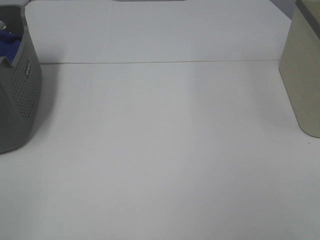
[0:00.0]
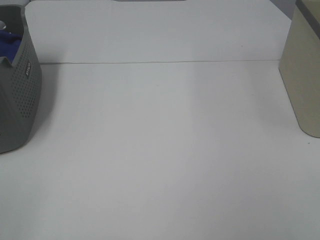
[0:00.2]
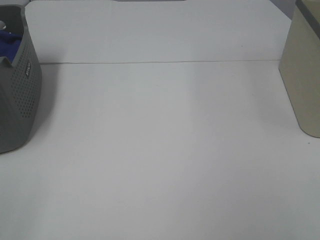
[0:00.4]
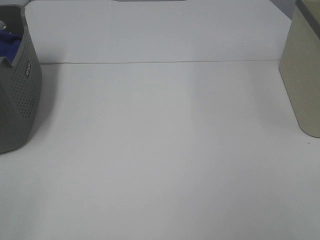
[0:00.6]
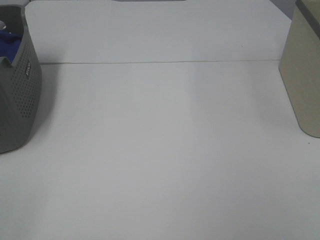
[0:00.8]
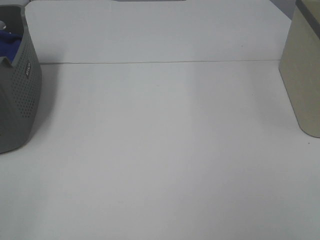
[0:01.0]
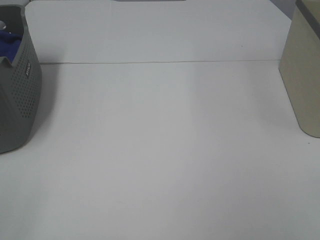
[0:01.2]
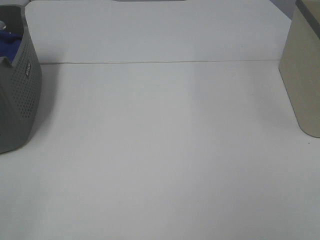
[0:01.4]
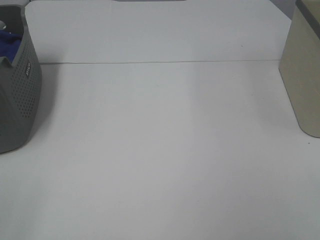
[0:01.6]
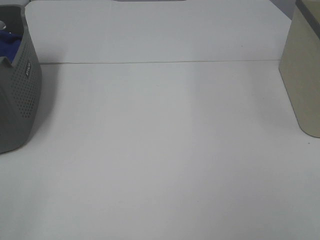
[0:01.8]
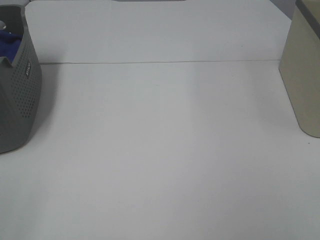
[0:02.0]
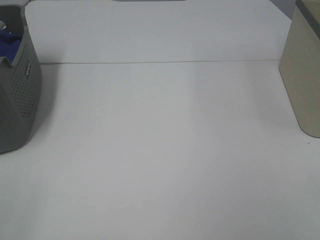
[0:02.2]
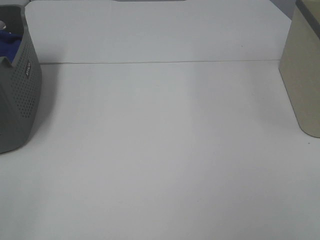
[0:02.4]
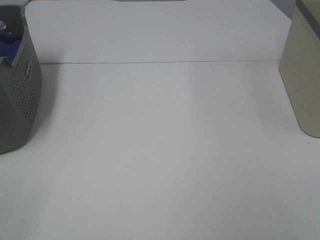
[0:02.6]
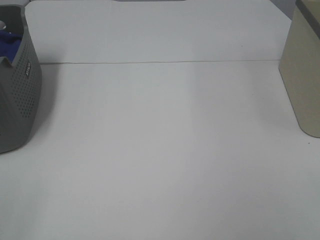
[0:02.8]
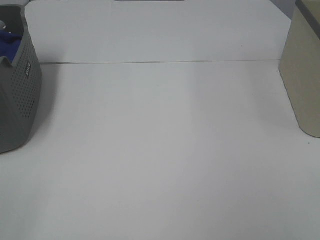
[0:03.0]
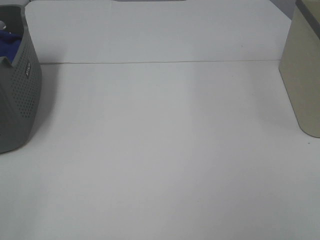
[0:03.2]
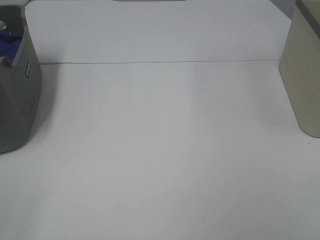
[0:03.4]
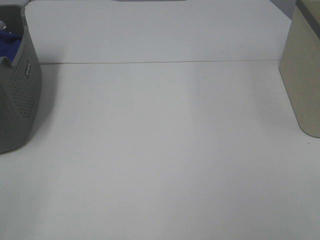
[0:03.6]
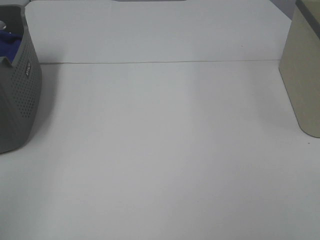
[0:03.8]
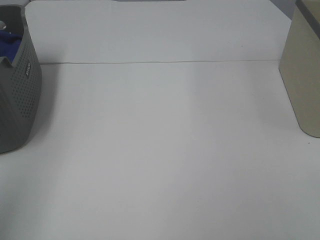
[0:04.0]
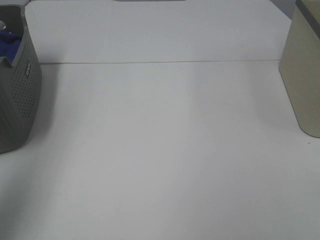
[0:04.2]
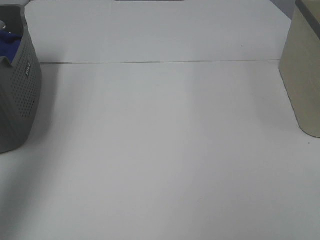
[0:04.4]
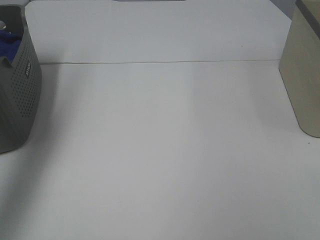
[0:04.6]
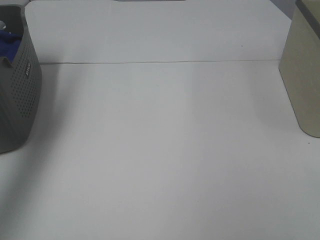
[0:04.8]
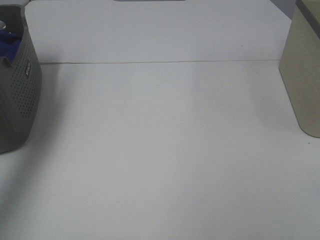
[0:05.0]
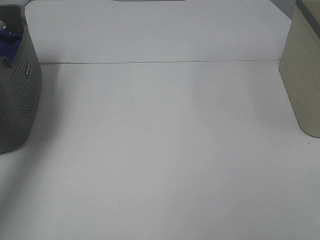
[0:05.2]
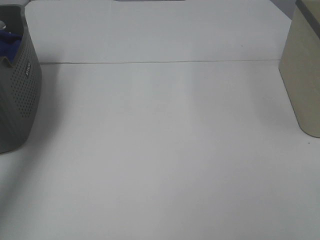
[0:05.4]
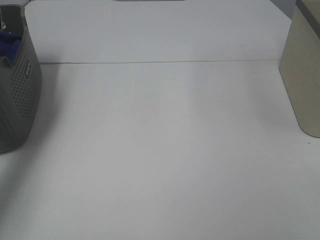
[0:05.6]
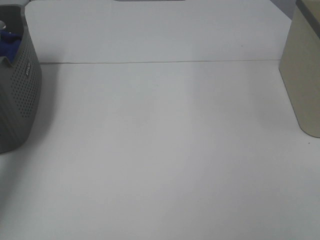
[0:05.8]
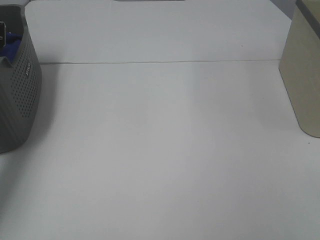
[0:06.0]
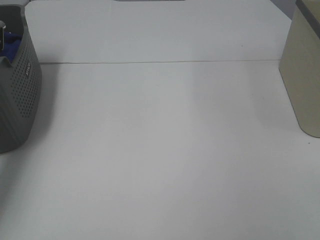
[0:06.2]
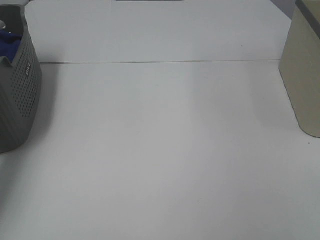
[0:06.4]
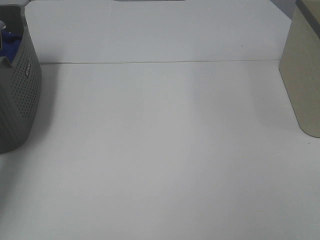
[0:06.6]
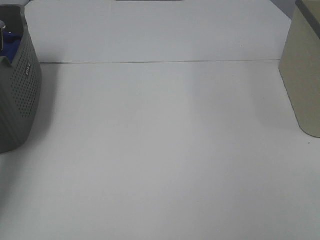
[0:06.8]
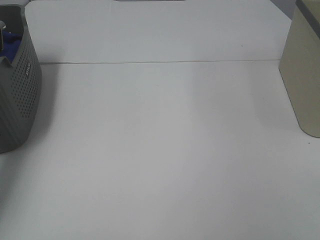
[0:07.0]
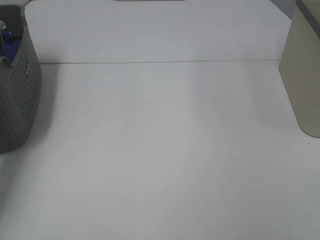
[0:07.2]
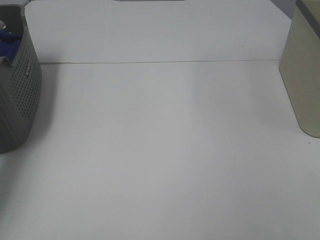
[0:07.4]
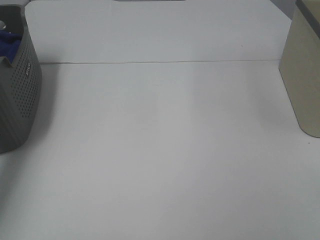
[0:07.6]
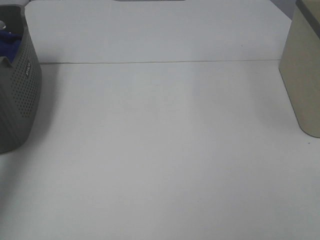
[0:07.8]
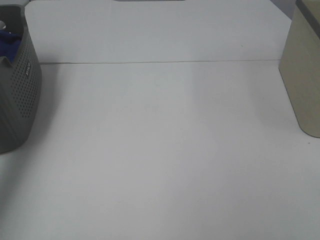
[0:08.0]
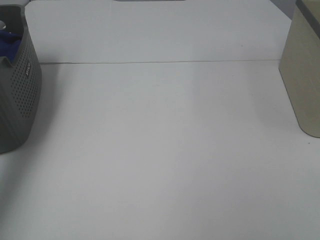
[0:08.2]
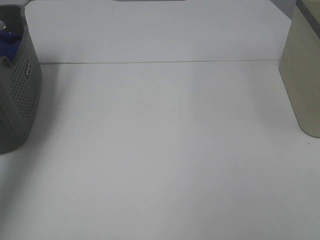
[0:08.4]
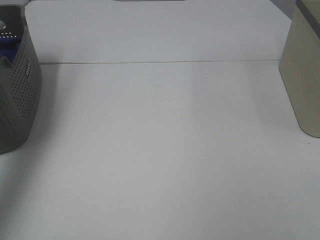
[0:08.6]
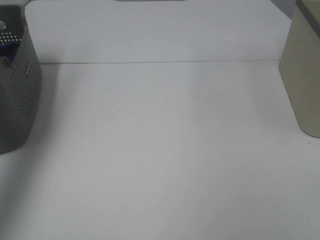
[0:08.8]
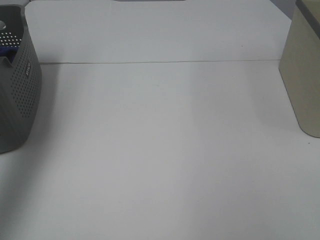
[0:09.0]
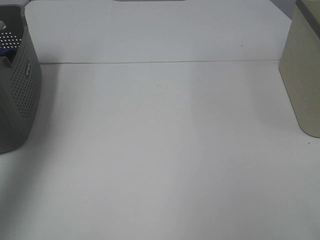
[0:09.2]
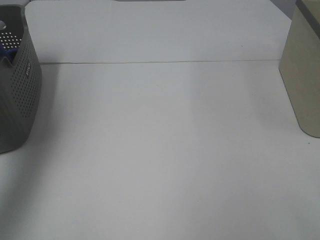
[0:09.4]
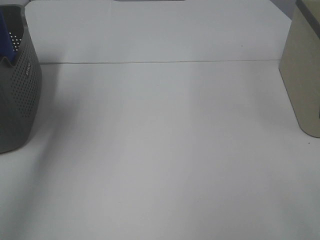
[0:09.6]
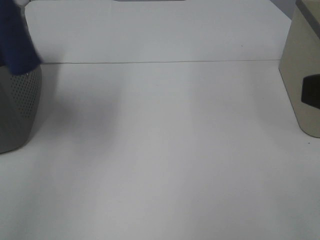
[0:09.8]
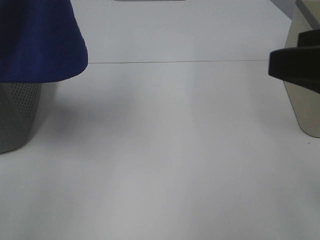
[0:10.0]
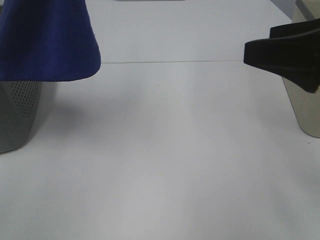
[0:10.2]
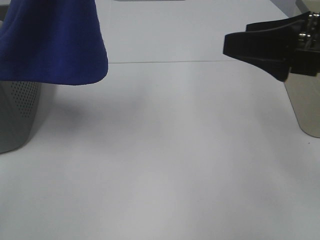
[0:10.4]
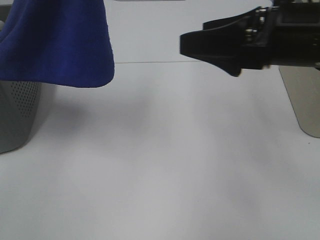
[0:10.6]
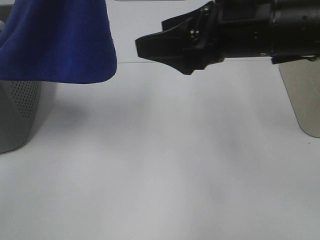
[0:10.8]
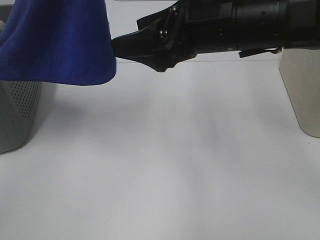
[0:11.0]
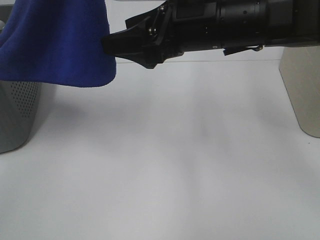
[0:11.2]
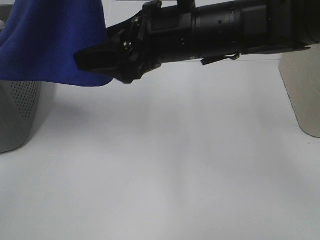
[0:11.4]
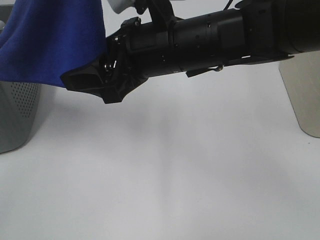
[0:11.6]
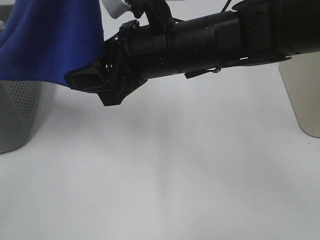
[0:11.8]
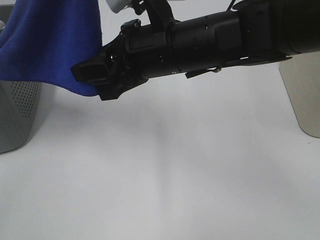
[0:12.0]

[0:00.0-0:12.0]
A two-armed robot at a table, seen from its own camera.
Task of the whole recording: Remove the towel and place it.
0:00.0 to 0:03.0: Both grippers stay put.
0:03.0 to 0:04.4: The left gripper travels forward and upward by about 30 cm.
0:04.4 to 0:06.0: The left gripper shifts roughly 30 cm forward and downward.
0:07.6 to 0:09.0: The left gripper heads upward and backward, covering approximately 30 cm.
0:09.0 to 0:10.4: The left gripper is displaced to the right by about 20 cm, while the right gripper heads forward, covering approximately 20 cm.
0:10.4 to 0:12.0: The right gripper moves to the left, approximately 20 cm, and closes its fingers.

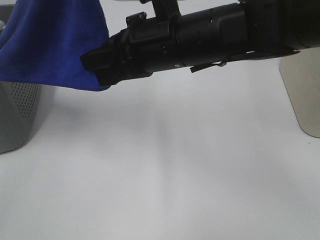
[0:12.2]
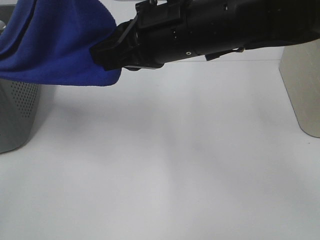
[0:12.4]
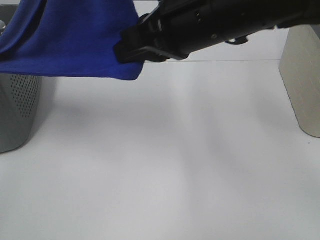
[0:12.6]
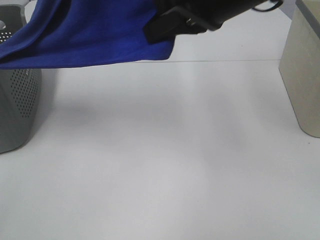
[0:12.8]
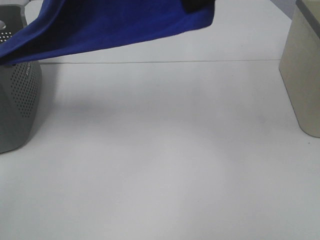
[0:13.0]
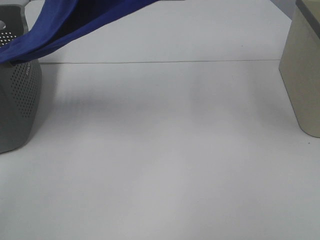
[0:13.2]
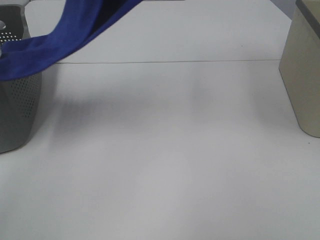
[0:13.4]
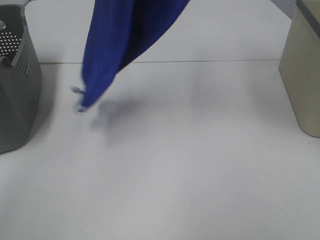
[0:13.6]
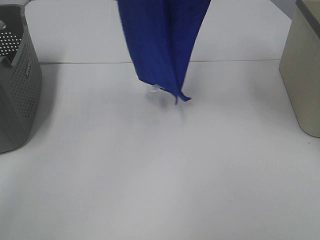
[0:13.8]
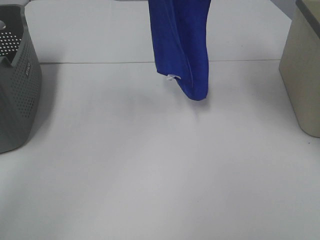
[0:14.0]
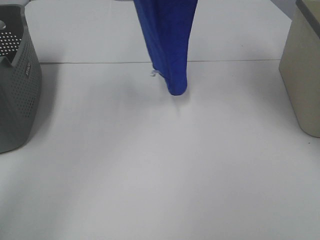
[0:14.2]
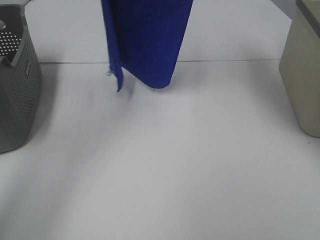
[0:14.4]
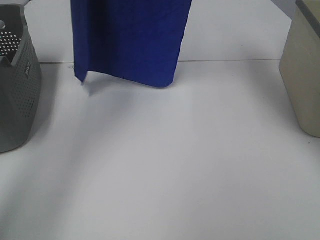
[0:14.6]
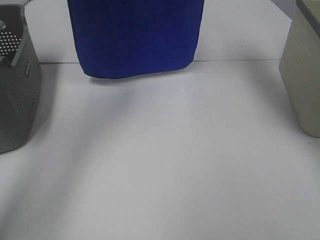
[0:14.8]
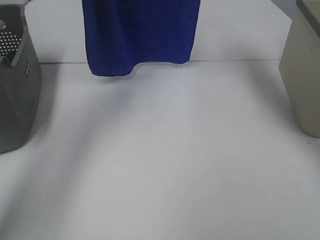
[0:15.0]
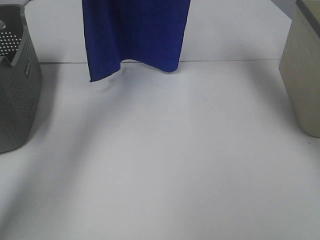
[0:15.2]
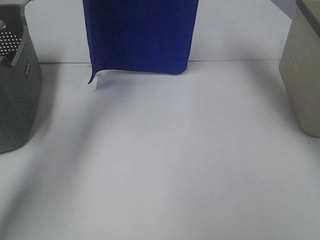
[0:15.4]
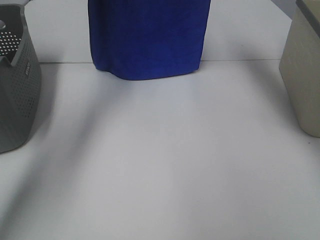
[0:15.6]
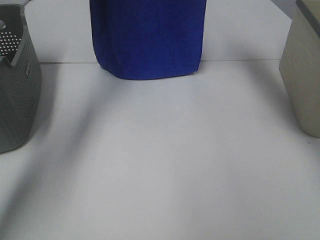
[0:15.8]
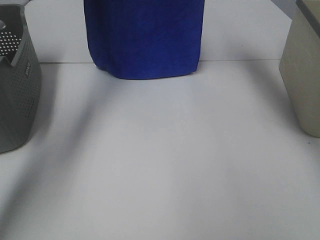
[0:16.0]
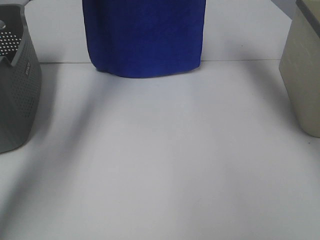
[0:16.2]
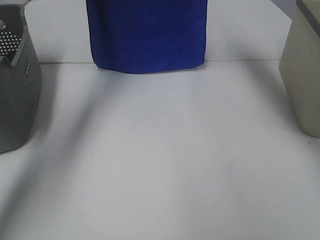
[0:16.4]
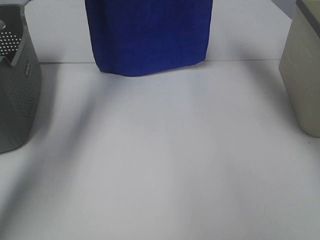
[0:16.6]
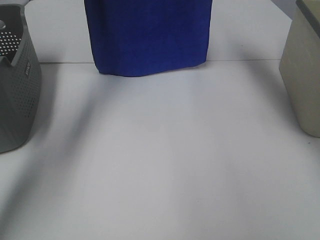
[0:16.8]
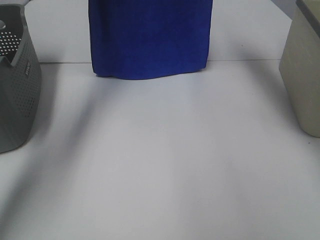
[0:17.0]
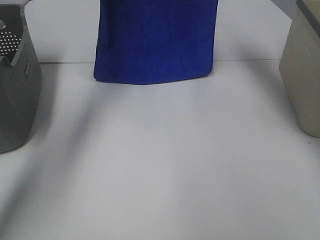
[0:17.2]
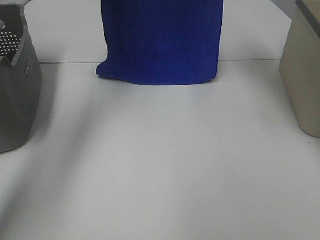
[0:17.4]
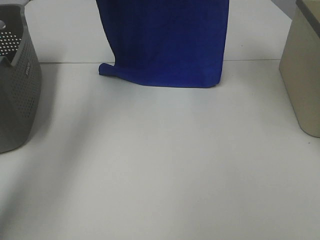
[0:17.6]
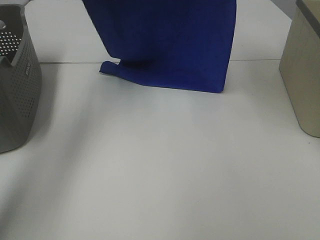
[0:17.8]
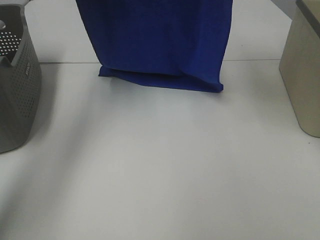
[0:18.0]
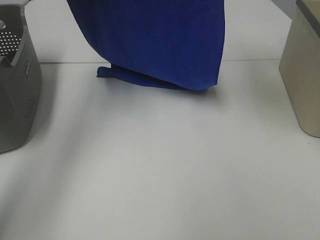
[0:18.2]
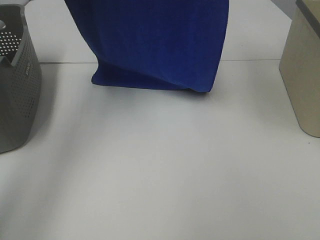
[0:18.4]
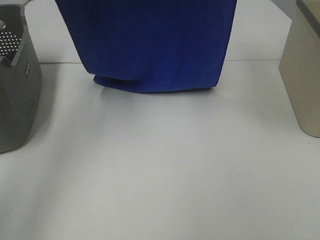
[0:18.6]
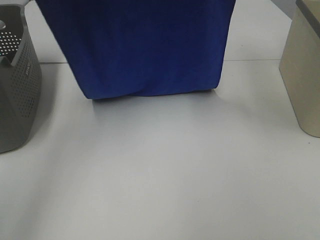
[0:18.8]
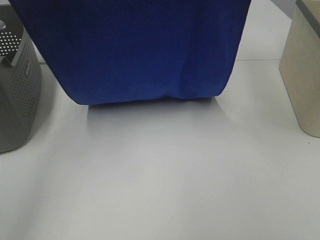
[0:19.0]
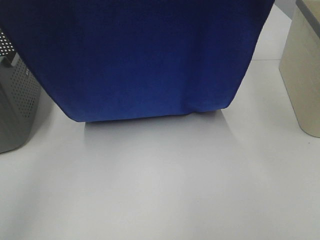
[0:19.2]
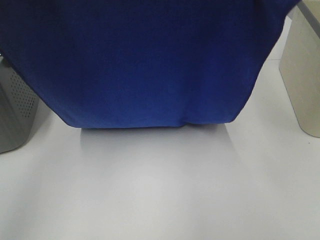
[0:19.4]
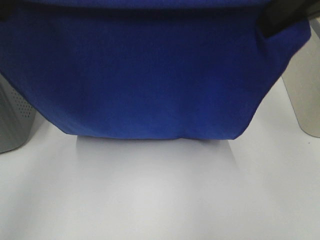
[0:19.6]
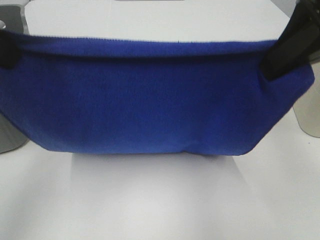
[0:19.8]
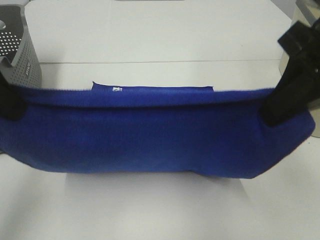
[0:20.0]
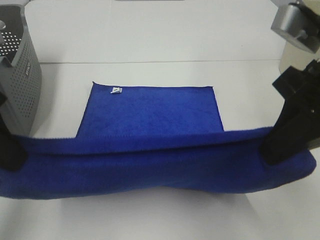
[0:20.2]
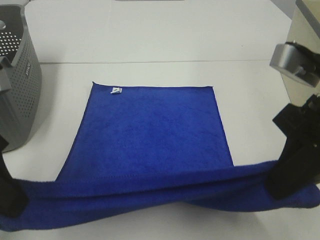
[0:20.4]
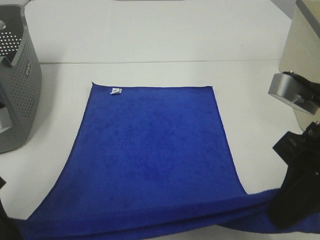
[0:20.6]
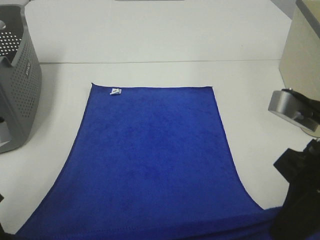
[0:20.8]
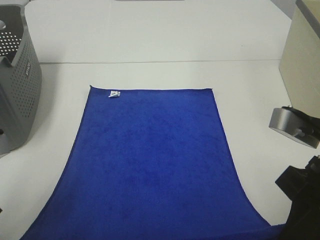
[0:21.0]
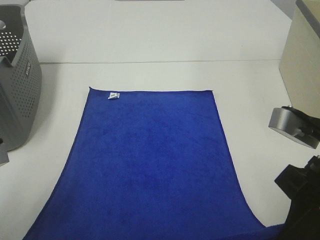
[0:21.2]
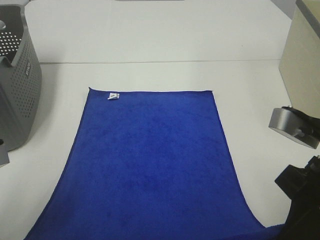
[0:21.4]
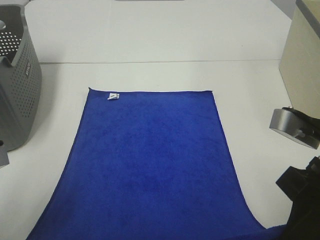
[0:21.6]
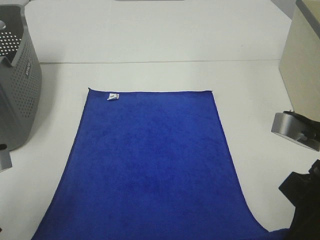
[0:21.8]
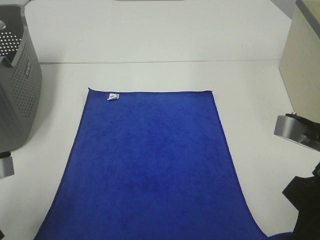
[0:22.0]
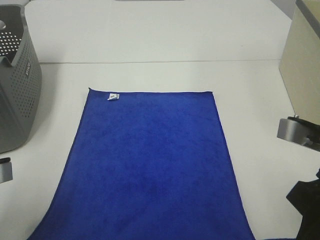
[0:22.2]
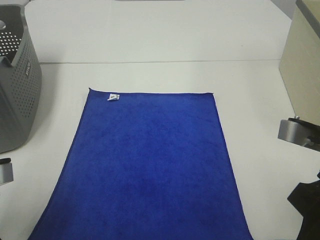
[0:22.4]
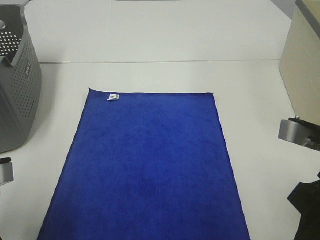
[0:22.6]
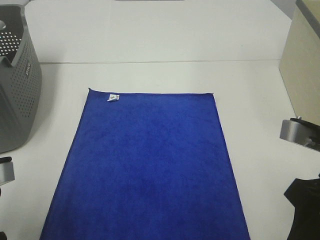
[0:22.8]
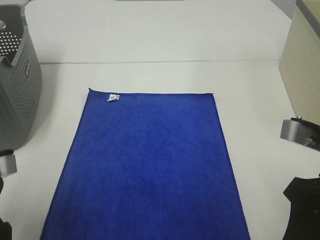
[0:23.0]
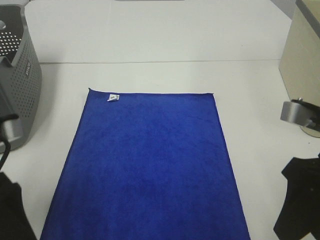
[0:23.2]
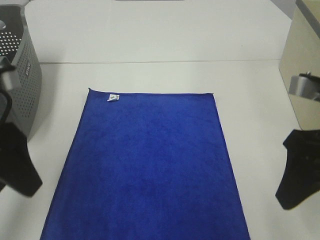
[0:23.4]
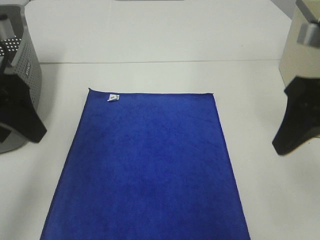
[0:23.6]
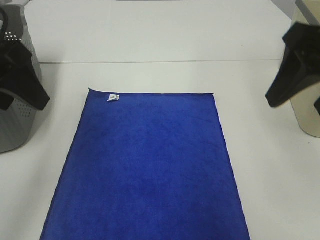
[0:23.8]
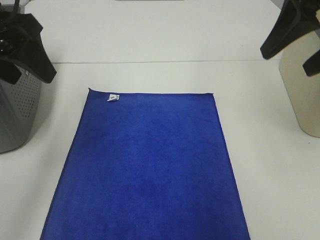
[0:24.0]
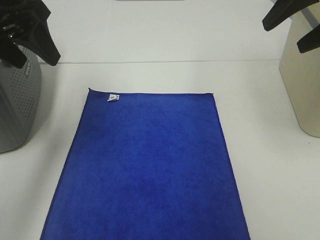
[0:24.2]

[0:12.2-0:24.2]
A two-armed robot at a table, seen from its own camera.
Task of the whole recording: Remove the towel and place it.
Step, 0:12.8 to 0:18.4: Left hand: spread the blue towel flat on the table.
Step, 0:12.8 to 0:18.4: Right hand: spread the blue towel flat on the table.
0:12.2 to 0:13.8: The right gripper travels upward by approximately 25 cm. Meanwhile the left gripper heads forward, covering some 5 cm.
0:13.8 to 0:15.2: The left gripper goes some 15 cm forward, downward and to the left; the right gripper heads forward and downward, covering some 15 cm.
0:15.2 to 0:16.6: The left gripper ends up some 5 cm from where it was.
0:16.6 to 0:18.2: The grippers both shift backward by roughly 10 cm.
0:18.2 to 0:19.8: Both grippers travel together backward and downward, roughly 20 cm.
0:19.8 to 0:21.2: Both grippers travel together downward and backward, roughly 15 cm.
0:21.2 to 0:22.6: The left gripper opens.
0:22.6 to 0:24.2: Both grippers travel together forward and upward, about 25 cm. The right gripper opens its fingers.
